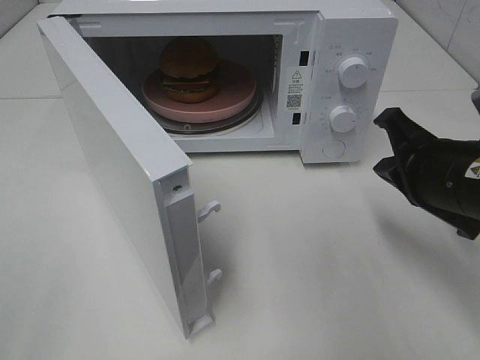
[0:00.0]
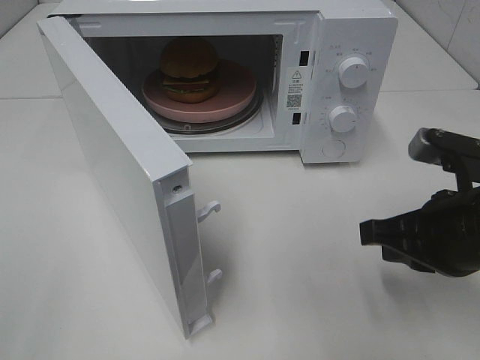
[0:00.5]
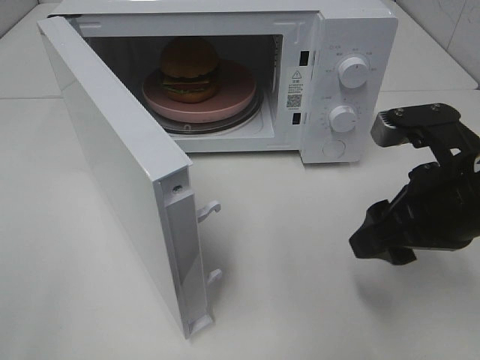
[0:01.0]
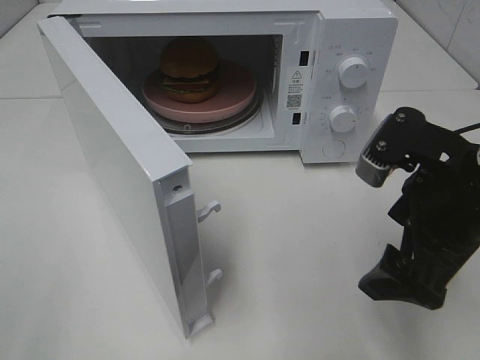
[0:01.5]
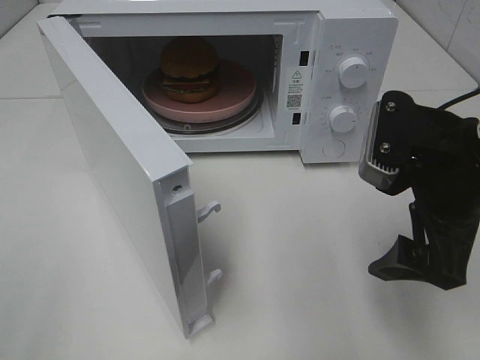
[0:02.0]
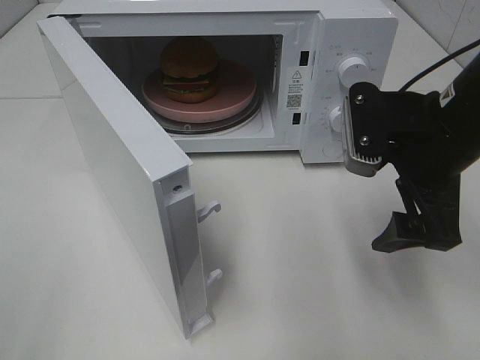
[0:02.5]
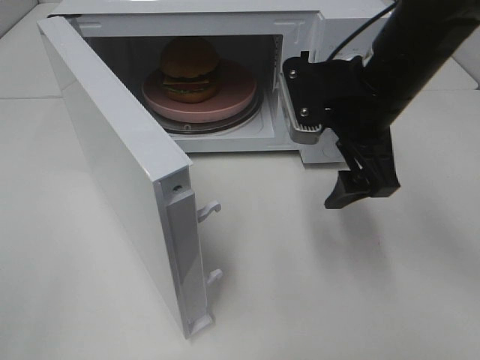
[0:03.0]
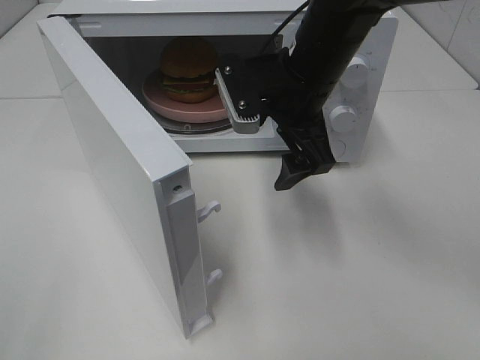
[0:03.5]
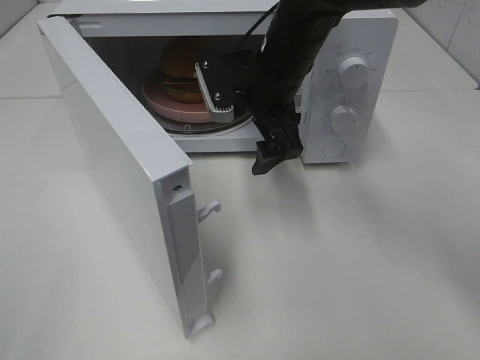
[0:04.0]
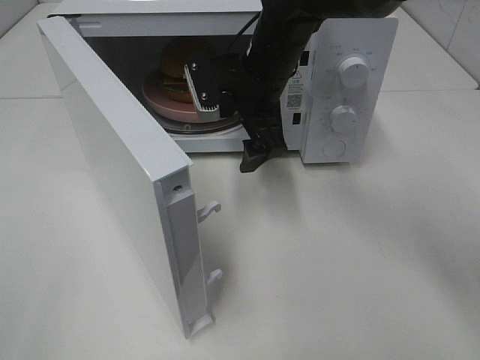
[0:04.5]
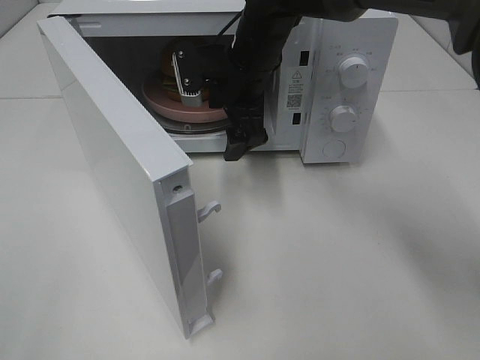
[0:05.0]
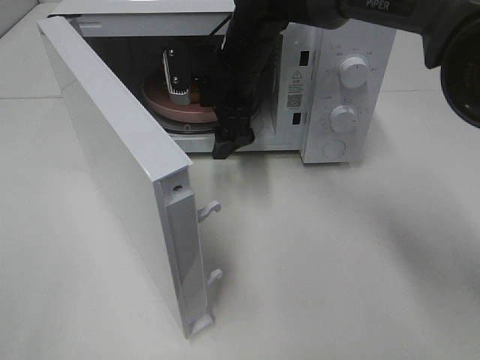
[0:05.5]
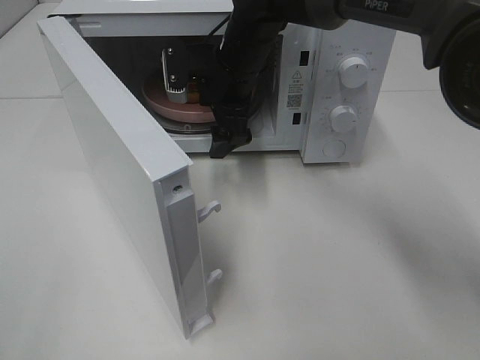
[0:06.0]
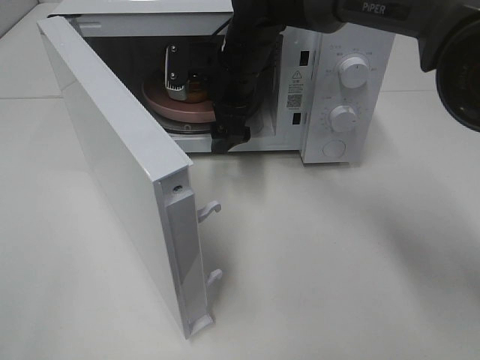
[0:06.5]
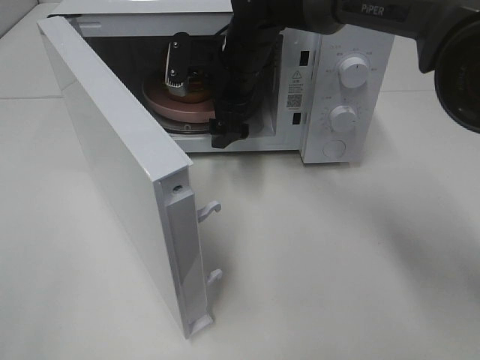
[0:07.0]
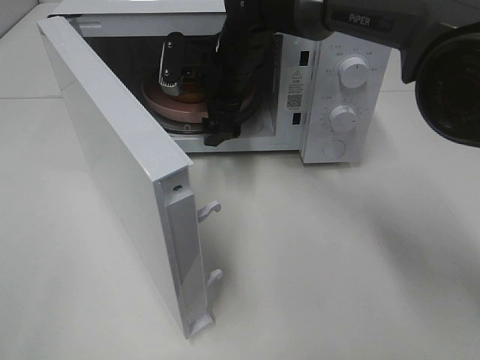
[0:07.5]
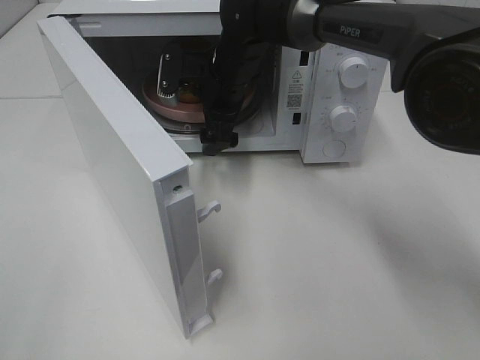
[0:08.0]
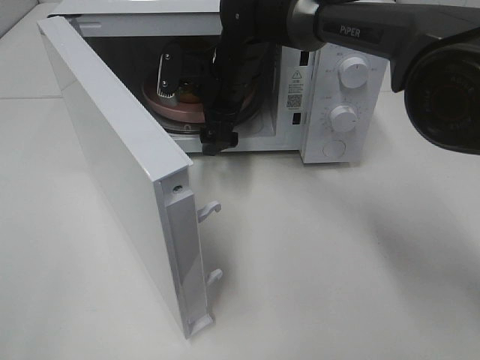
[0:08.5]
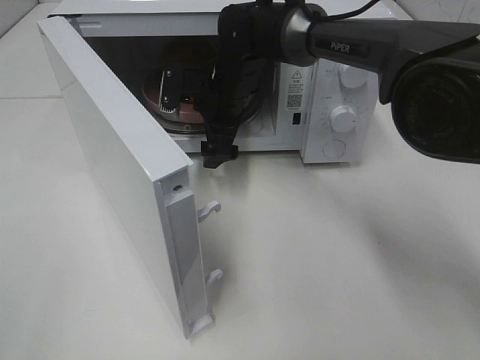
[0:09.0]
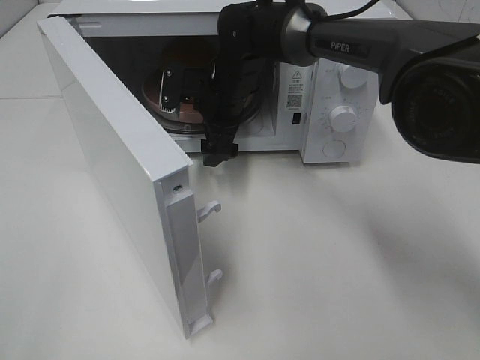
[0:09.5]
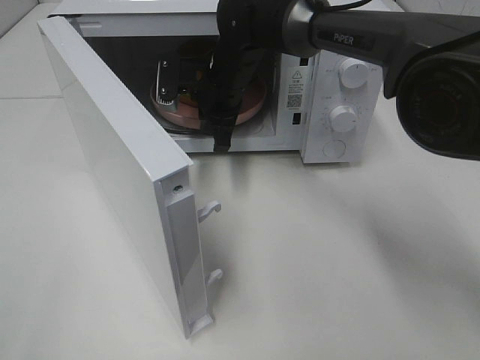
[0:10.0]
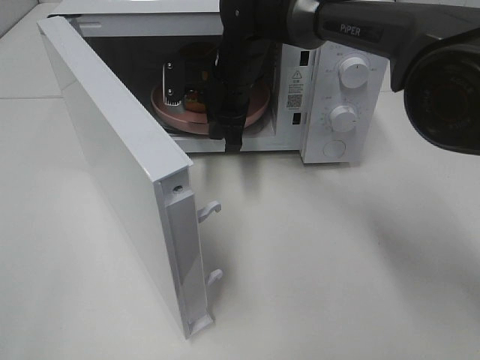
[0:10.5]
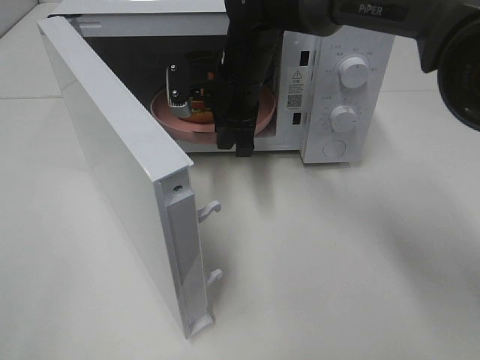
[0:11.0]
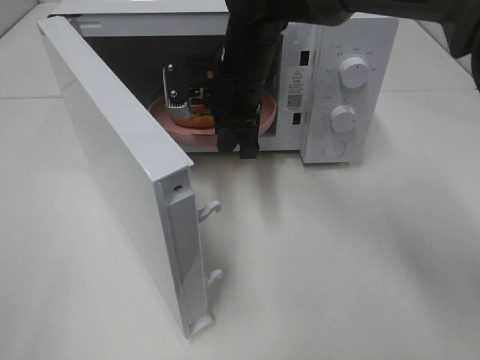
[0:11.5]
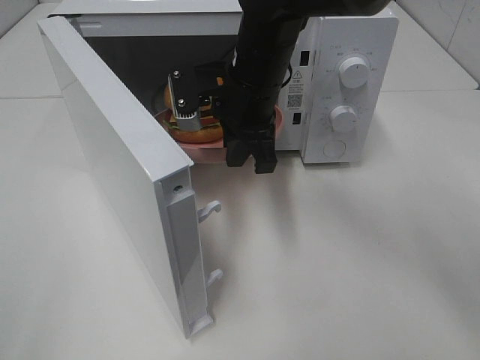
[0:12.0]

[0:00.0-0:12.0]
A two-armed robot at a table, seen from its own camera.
Task of the whole recording: Heat the burger.
Step, 0:00.0 to 0:09.5: Right hand: grab the plate with the hamburger.
0:00.0 to 0:02.0: The right gripper moves approximately 5 cm, and opens up.
0:02.0 to 0:04.0: The right gripper moves forward and to the left, roughly 20 cm.
0:04.0 to 0:06.0: The right gripper is displaced forward by roughly 5 cm.
0:06.0 to 0:08.0: The grippers stay close to where they were, moving slightly.
0:08.0 to 0:10.0: The right gripper closes up.
0:10.0 to 0:12.0: The right gripper is displaced backward and upward by approximately 10 cm.

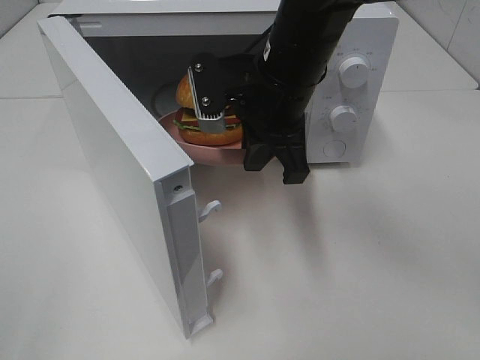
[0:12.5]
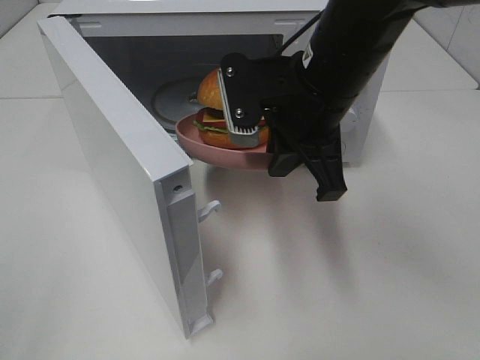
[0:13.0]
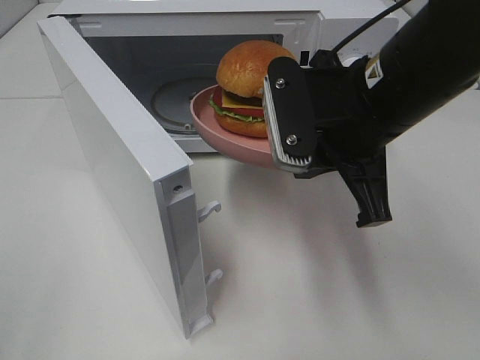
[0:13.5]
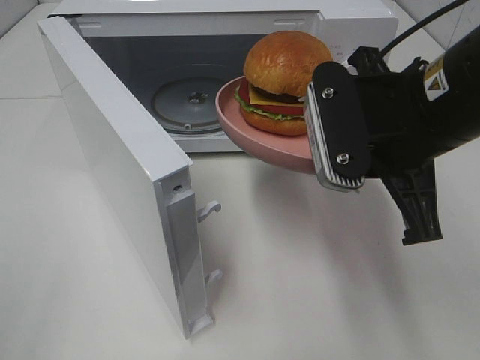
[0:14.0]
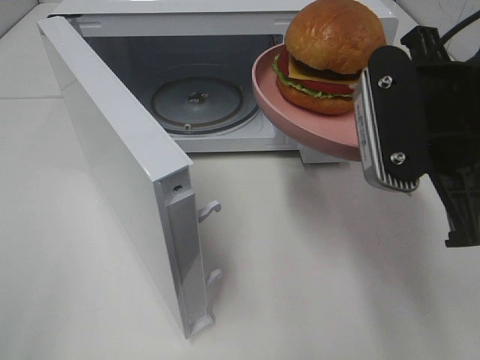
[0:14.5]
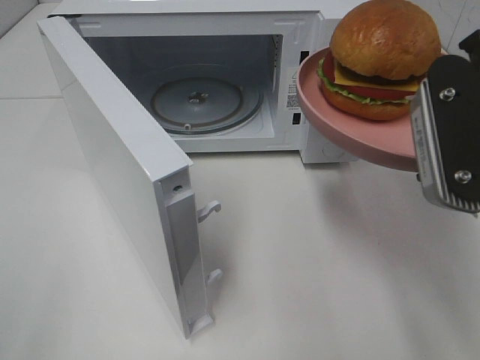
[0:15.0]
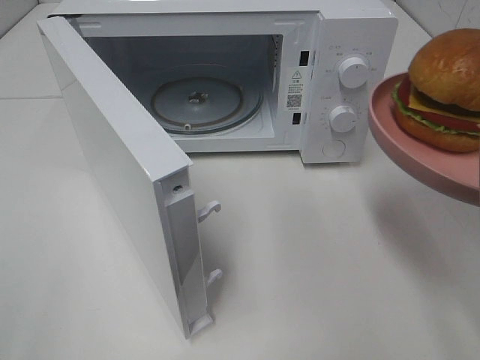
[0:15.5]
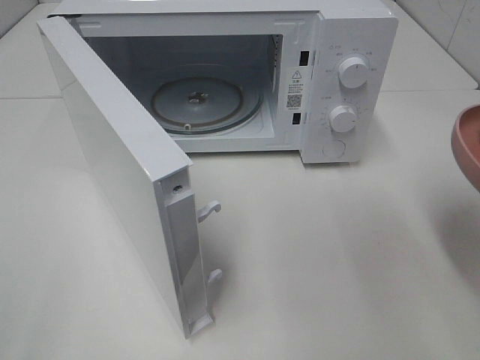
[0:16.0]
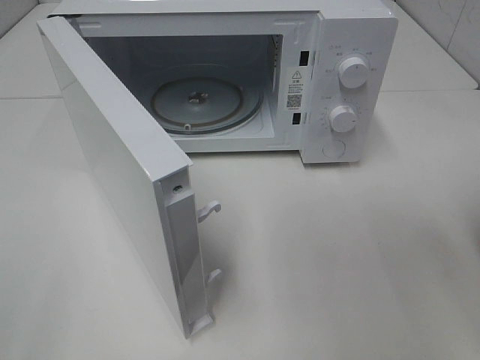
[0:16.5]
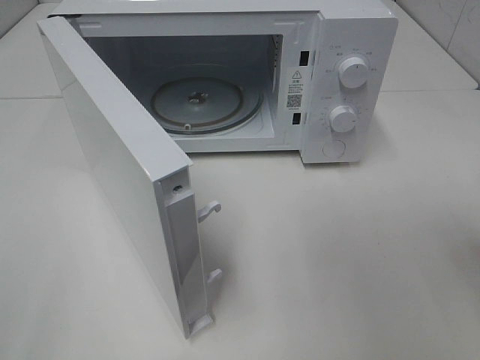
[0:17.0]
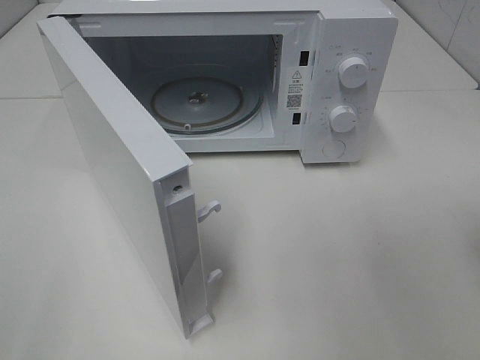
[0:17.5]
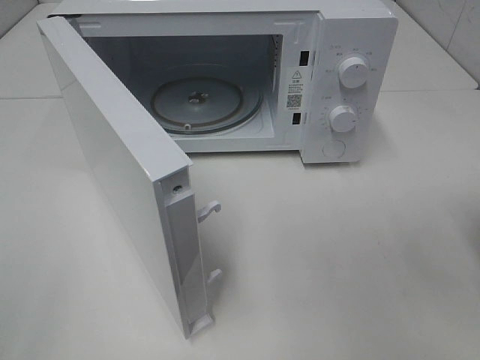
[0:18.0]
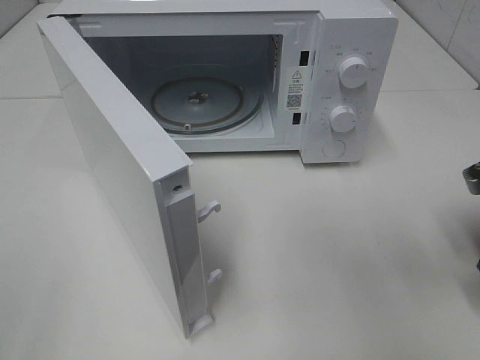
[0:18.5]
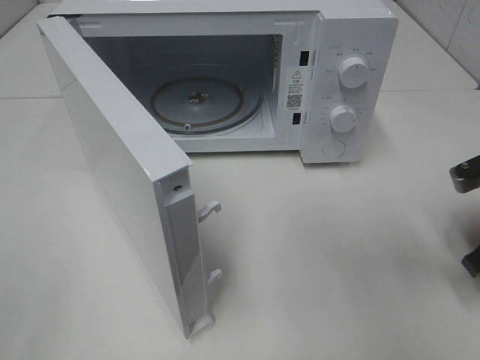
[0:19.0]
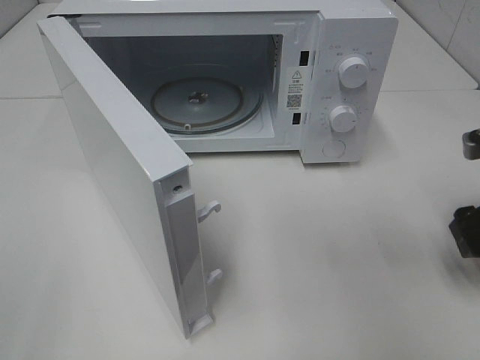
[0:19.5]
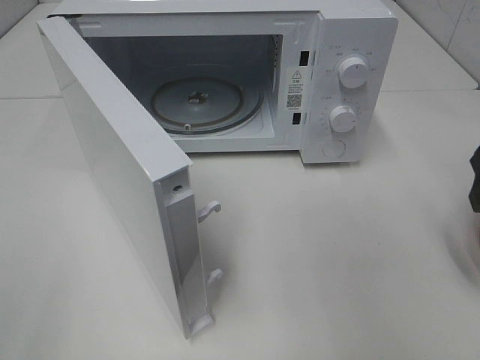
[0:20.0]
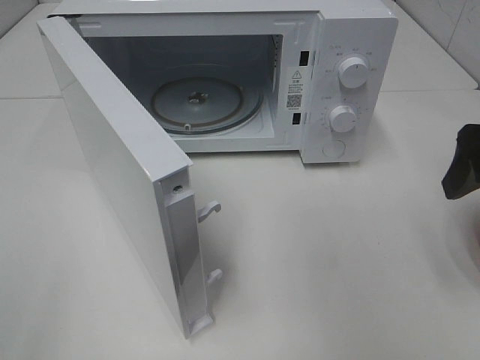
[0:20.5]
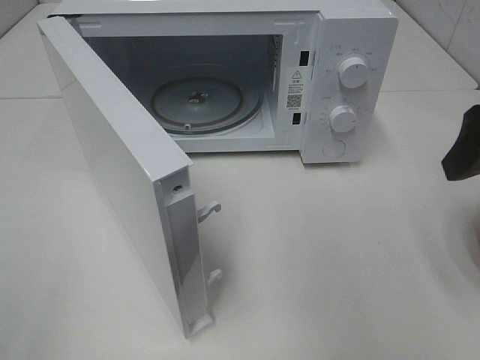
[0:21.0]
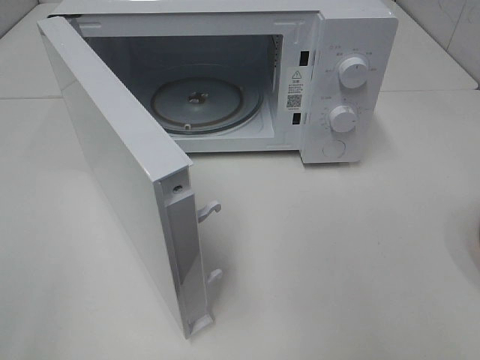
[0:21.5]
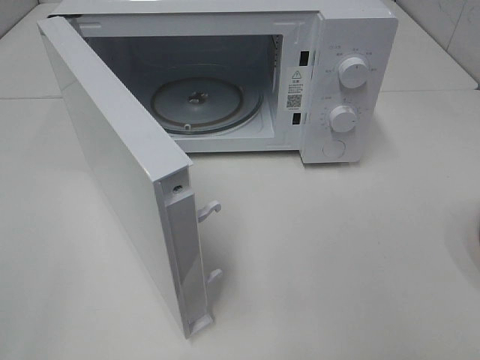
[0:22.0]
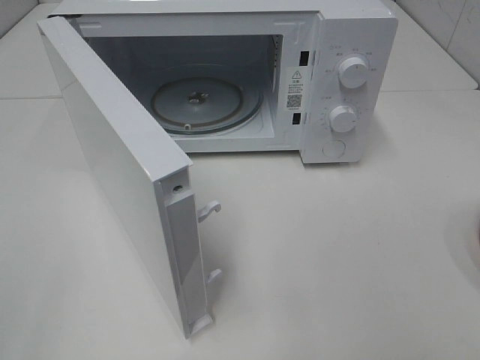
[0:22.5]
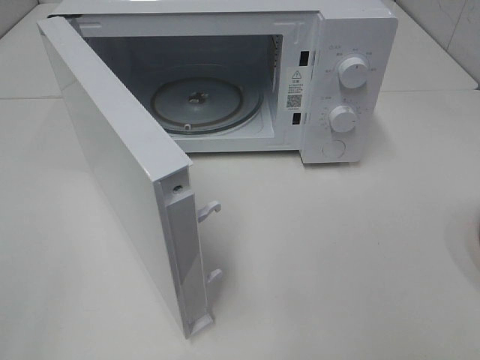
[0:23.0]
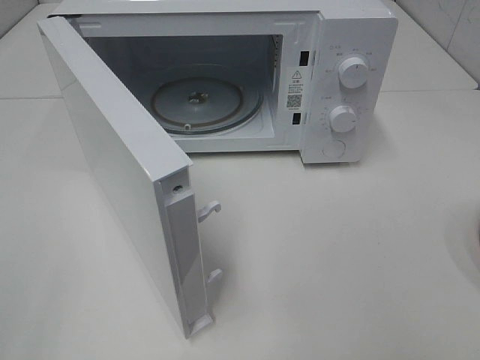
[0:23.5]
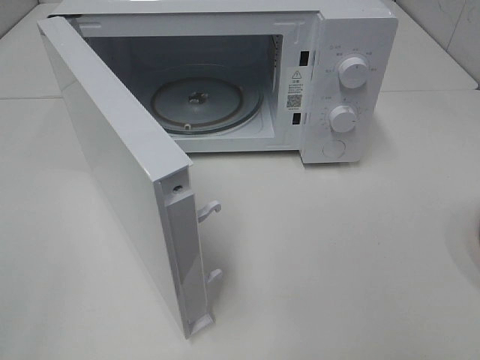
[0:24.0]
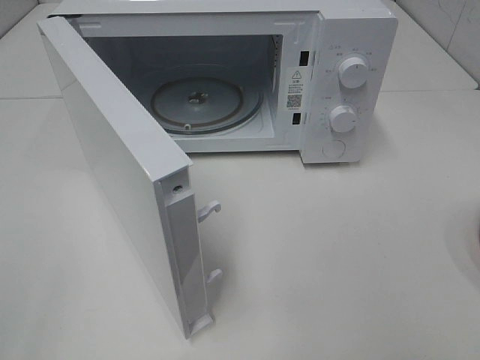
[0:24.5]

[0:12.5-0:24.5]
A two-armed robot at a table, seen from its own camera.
Task of the whole recording: Heat the burger.
Step, 0:12.5 to 0:18.5: Right hand: place the plate on the table.
0:12.5 to 0:14.5: The right gripper heads backward and to the right, covering roughly 15 cm.
0:14.5 to 0:16.5: The right gripper heads to the right and backward, covering about 10 cm.
0:18.5 to 0:20.5: The right gripper travels upward by about 10 cm, and opens its fingers.
0:20.5 to 0:22.5: The right gripper moves backward, approximately 25 cm.

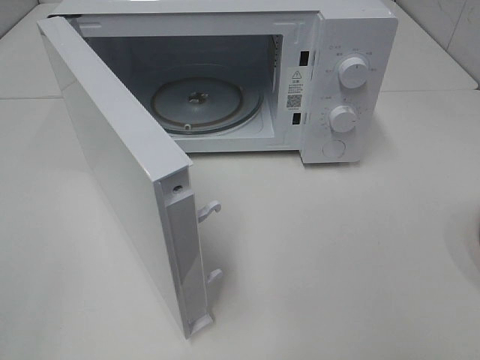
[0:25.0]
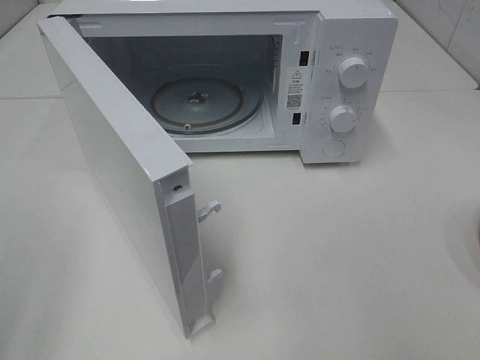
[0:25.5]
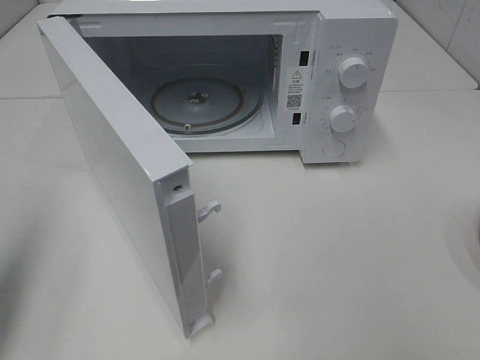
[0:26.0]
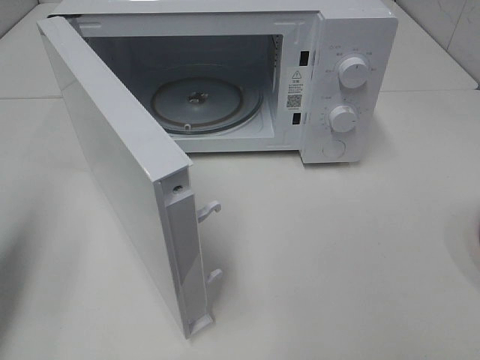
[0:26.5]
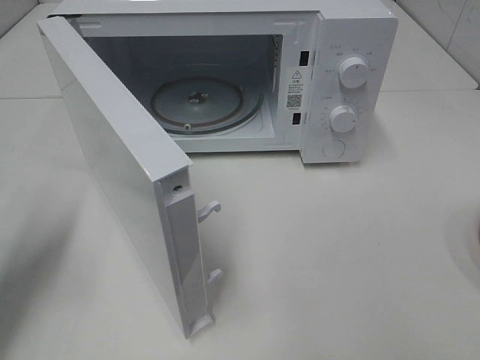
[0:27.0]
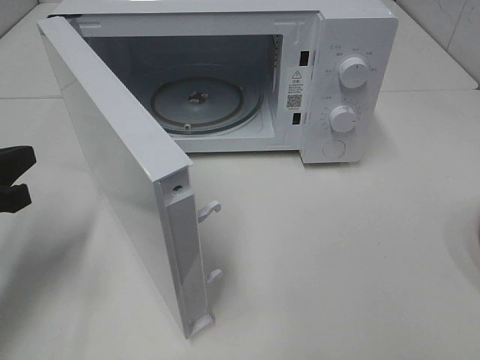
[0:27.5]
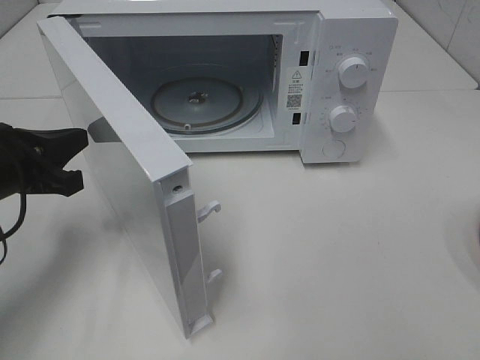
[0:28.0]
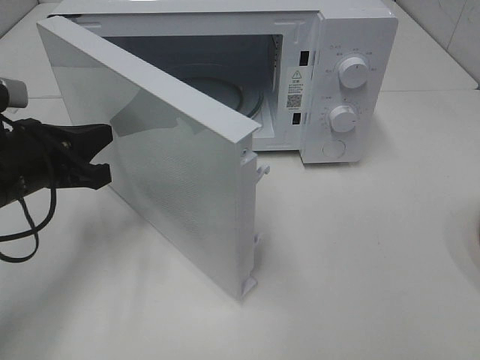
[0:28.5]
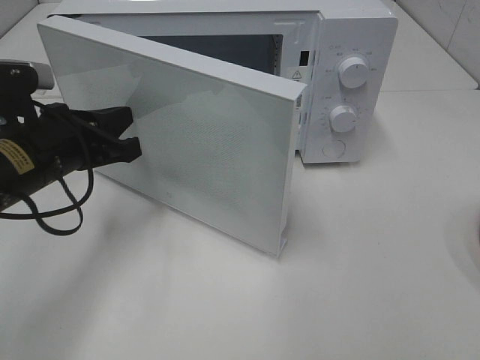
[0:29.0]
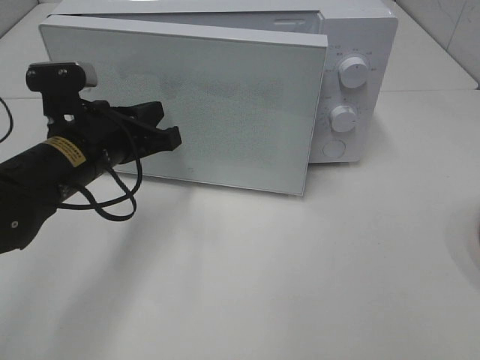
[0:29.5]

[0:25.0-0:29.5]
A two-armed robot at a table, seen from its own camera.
Task of the whole recording: Heat the burger.
0:25.0 to 0:27.0: The left gripper goes about 25 cm forward and downward, and closes up.
0:27.0 to 0:29.5: The left gripper travels to the right and forward by approximately 15 cm.
